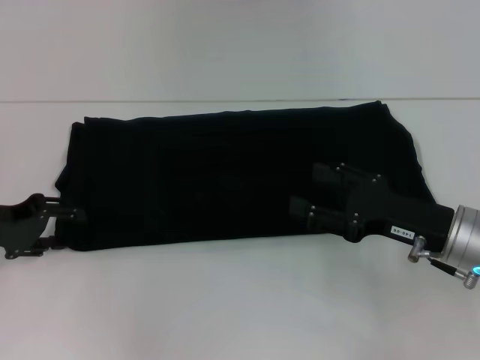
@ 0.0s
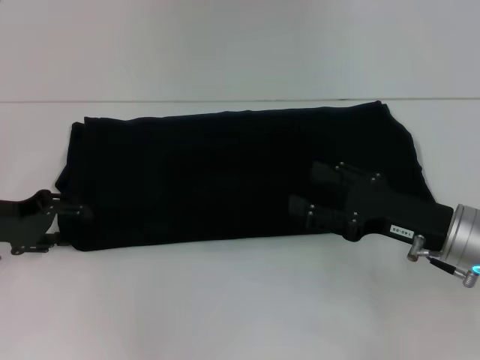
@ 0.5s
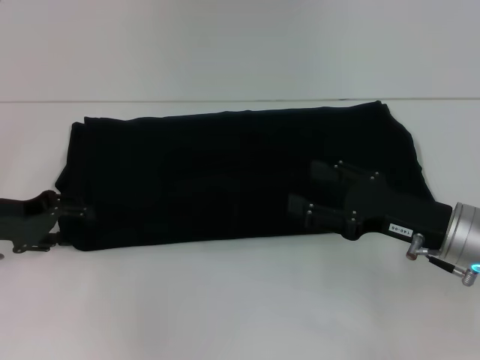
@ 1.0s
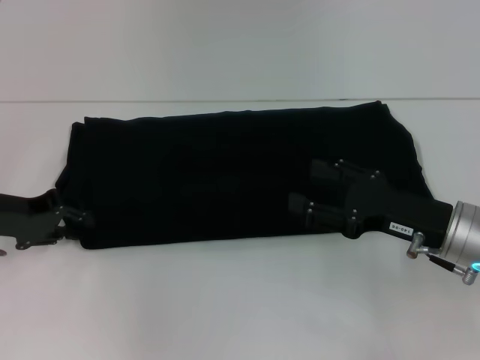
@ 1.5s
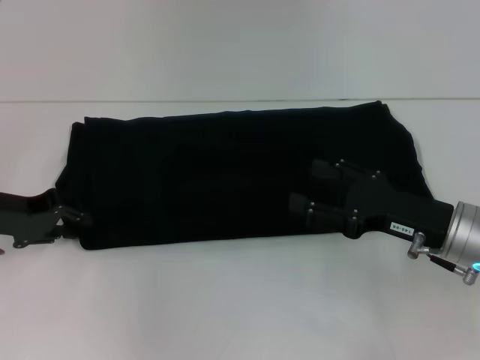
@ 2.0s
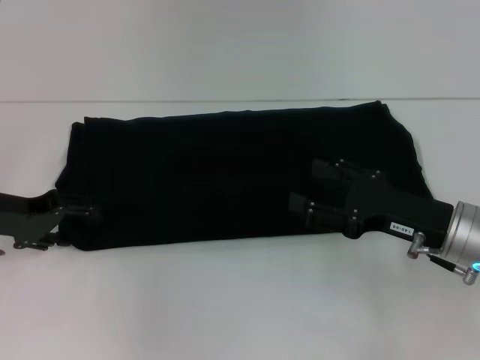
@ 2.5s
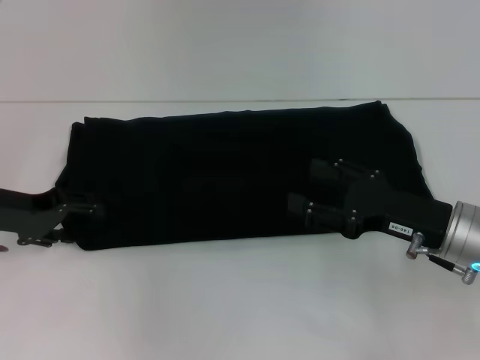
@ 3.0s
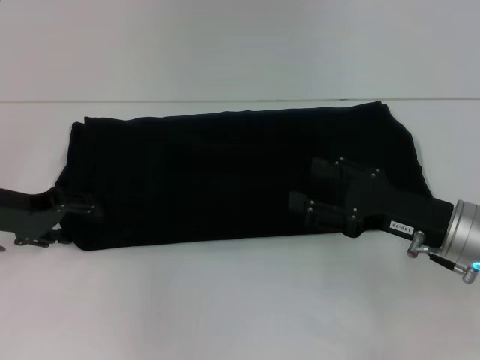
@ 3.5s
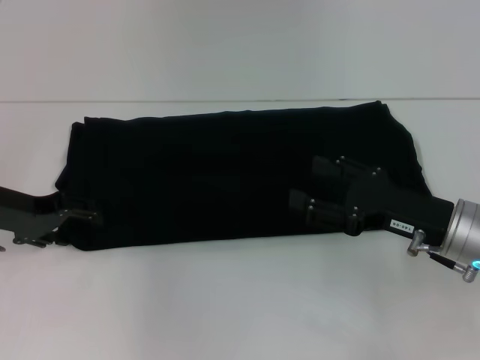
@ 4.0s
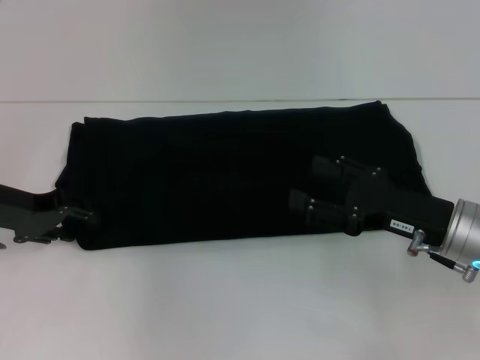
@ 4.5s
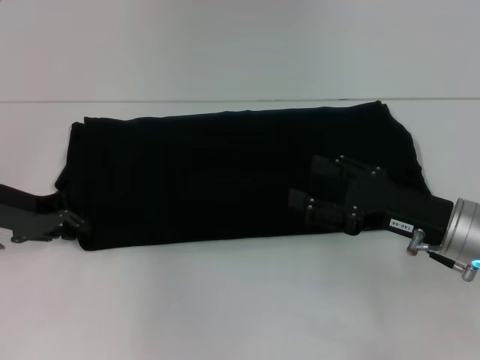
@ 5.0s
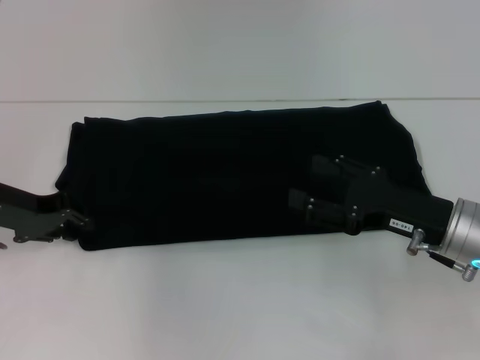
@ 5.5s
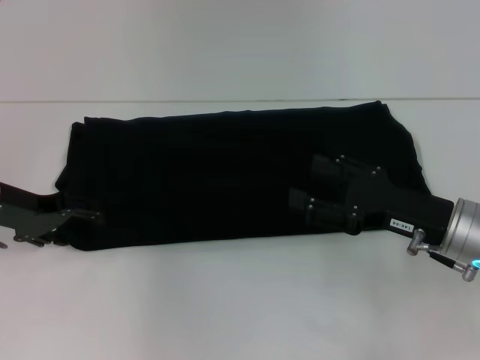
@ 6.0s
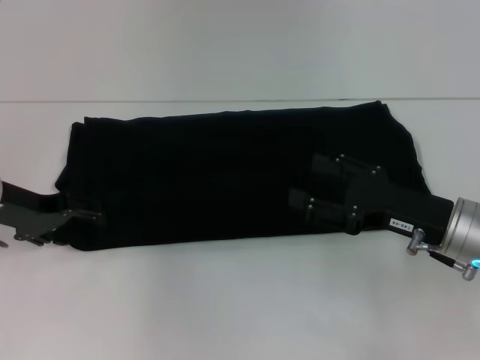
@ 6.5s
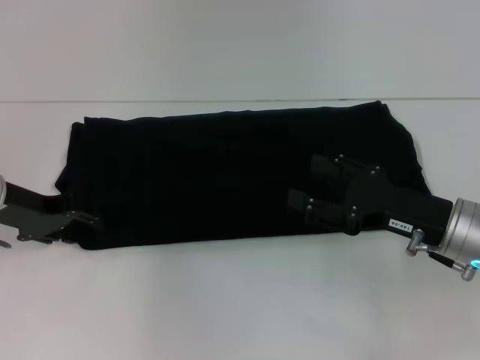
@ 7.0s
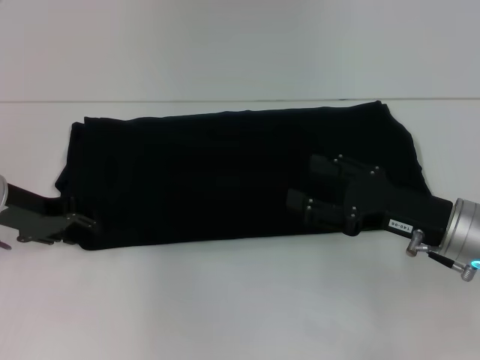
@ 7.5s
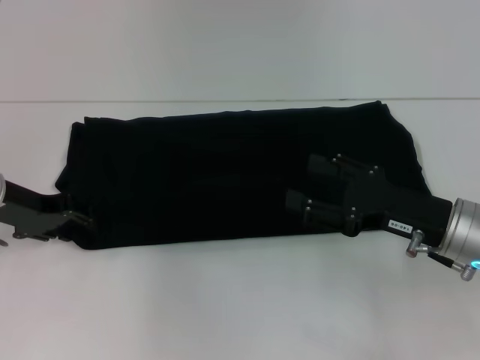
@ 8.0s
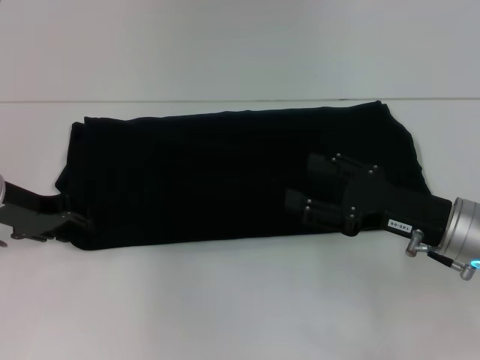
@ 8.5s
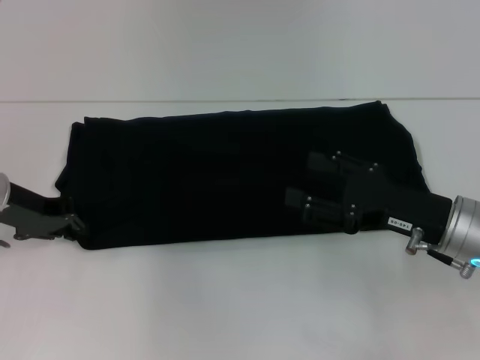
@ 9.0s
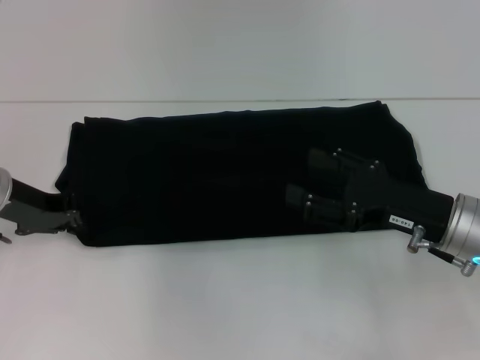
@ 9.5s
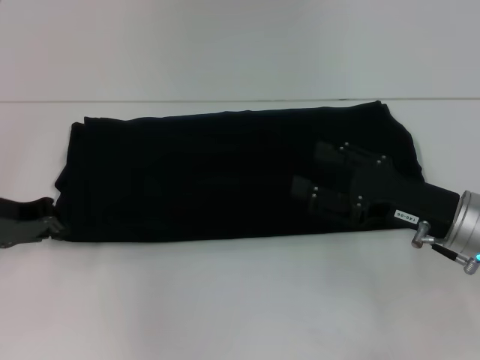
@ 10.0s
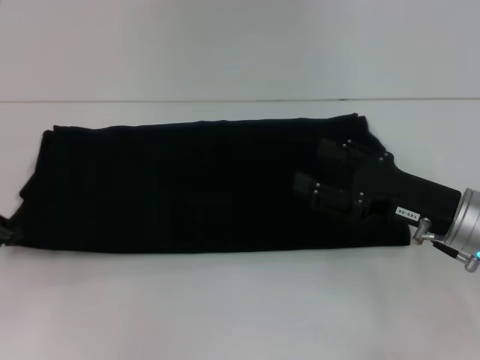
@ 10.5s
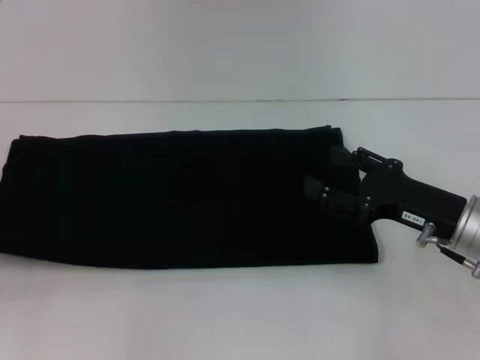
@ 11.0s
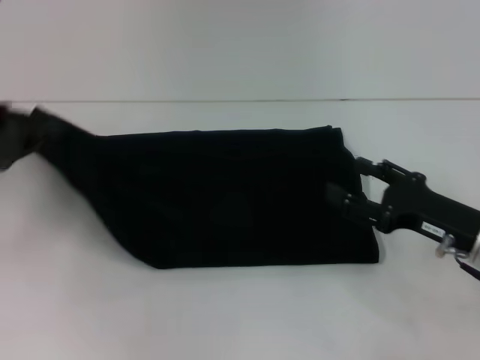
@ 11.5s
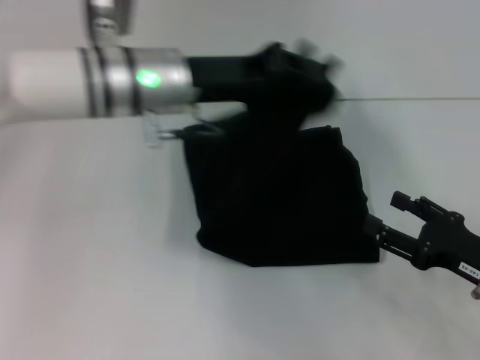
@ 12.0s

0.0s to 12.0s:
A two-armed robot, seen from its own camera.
0.0s to 2.0s: The left gripper closes up.
2.0s to 4.0s: The left gripper opens.
4.0s to 6.0s: Both grippers stay about where they are.
6.0s to 8.0s: Both grippers stay about where they are.
8.0s to 10.0s: The left gripper closes up.
10.0s to 12.0s: The right gripper moves to the right and backward, approximately 10 cm; the left gripper goes approximately 20 cm to the right and upward.

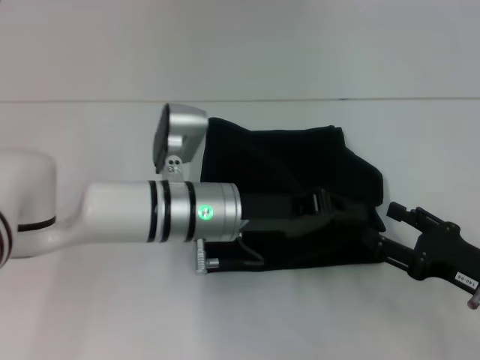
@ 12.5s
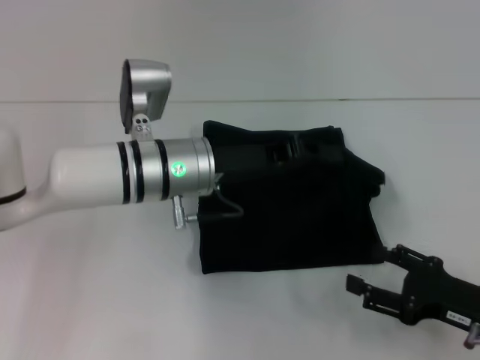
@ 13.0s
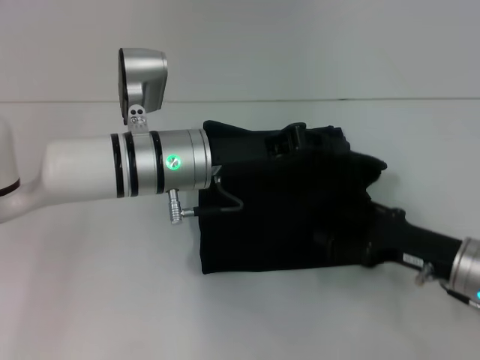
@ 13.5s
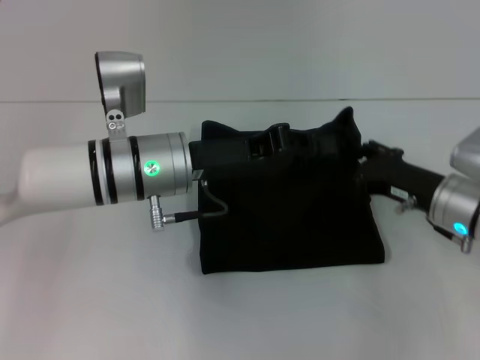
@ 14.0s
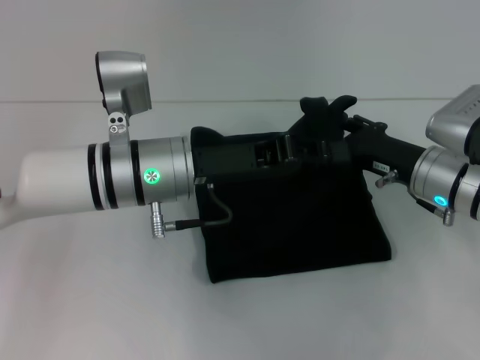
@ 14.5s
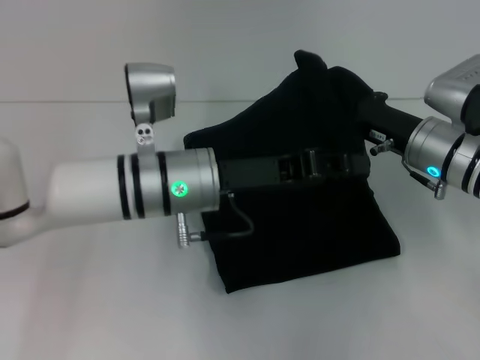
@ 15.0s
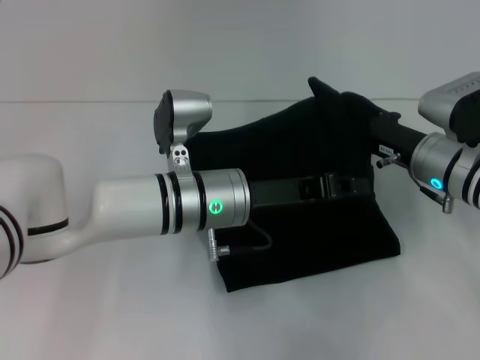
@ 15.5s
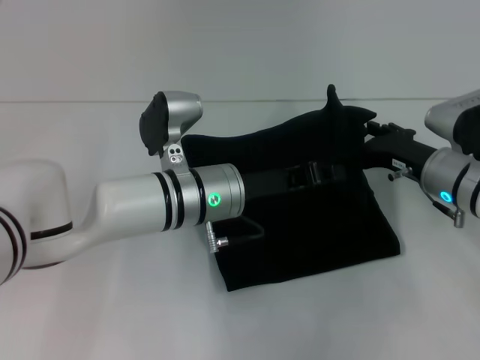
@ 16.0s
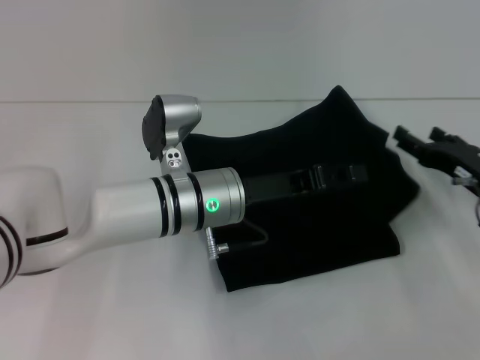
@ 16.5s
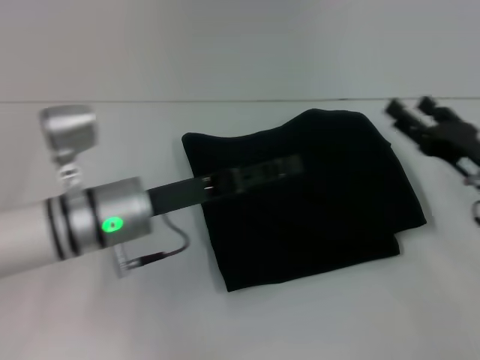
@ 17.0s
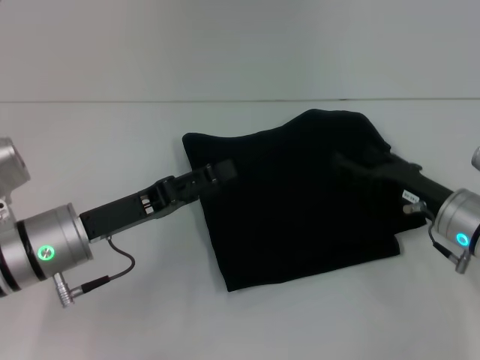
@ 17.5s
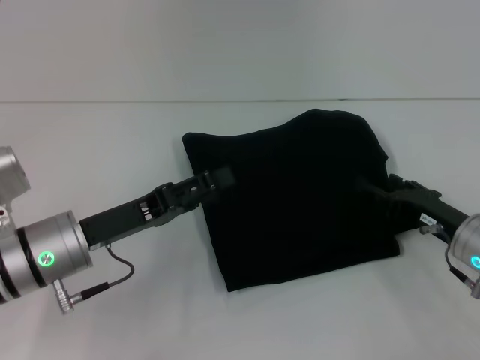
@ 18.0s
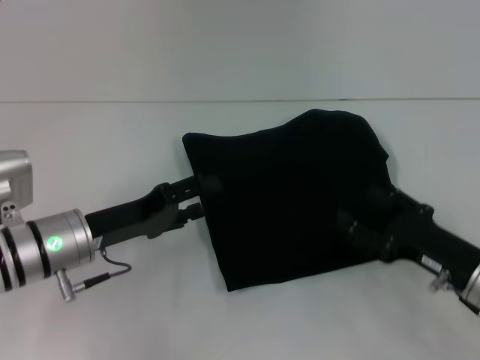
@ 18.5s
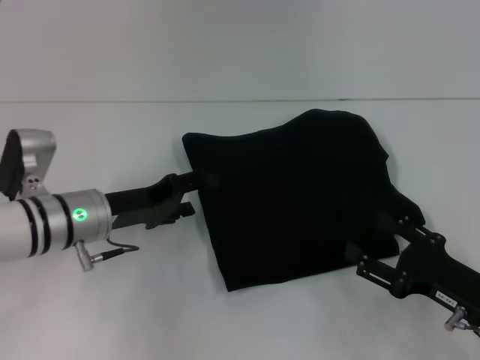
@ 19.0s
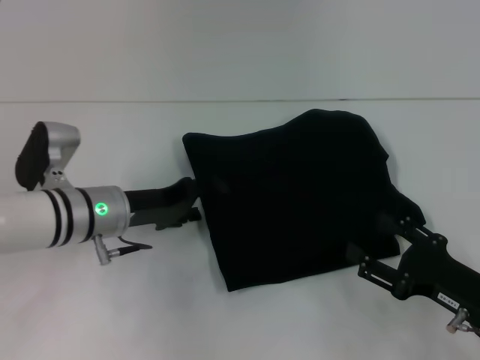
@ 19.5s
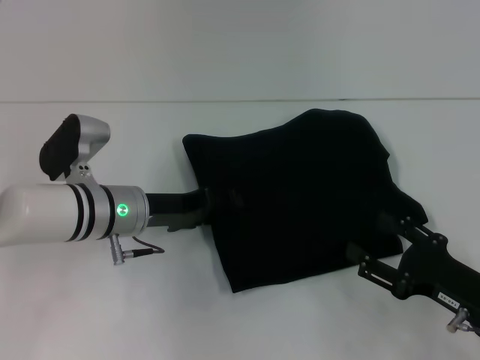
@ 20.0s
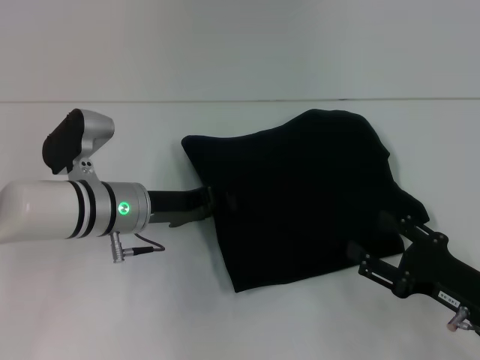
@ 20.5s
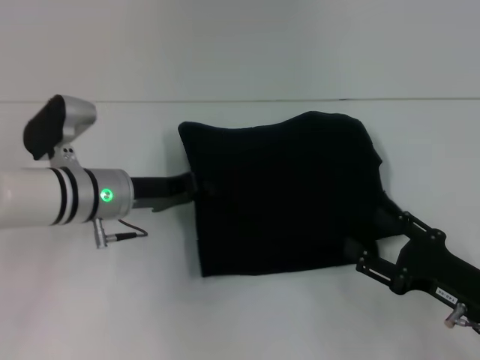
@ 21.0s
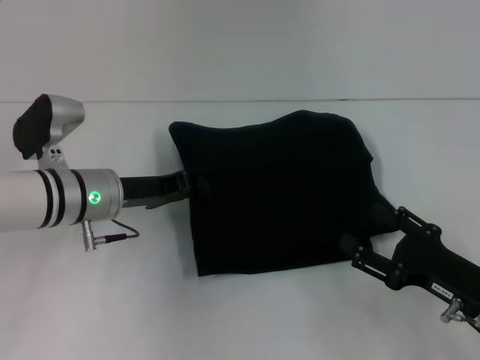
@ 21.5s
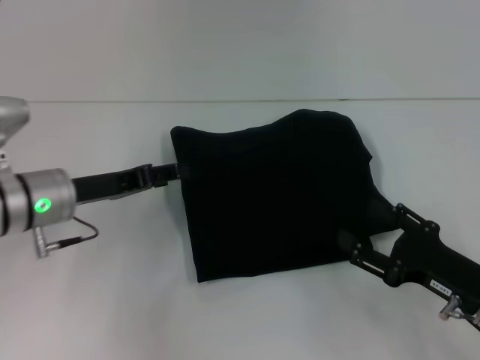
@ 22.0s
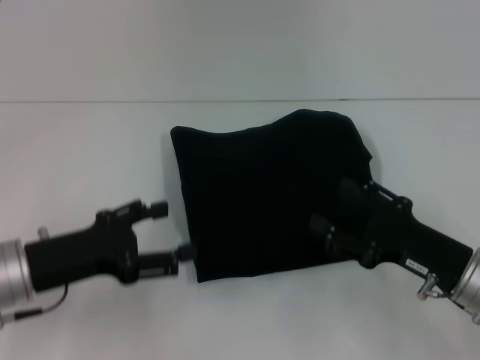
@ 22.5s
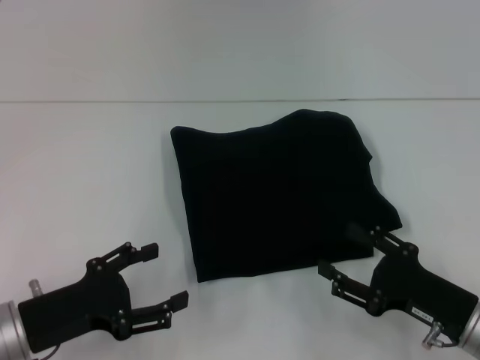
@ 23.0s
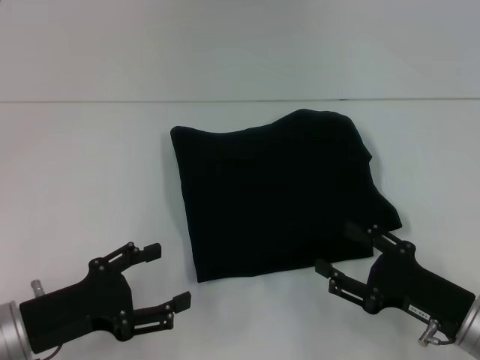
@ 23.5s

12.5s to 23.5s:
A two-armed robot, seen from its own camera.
12.5s to 14.5s: The left gripper changes place by some 5 cm. The right gripper heads forward and to the left, covering roughly 15 cm.
14.5s to 16.0s: The left gripper moves downward, approximately 5 cm.
16.0s to 18.0s: The left gripper moves to the left and backward, about 15 cm, and opens its fingers. The right gripper goes some 5 cm backward.
18.0s to 20.0s: The left gripper moves forward, approximately 5 cm. The right gripper moves backward, some 10 cm.
20.0s to 21.5s: The left gripper closes.
21.5s to 23.5s: The left gripper moves backward and to the left, some 15 cm, and opens up.
